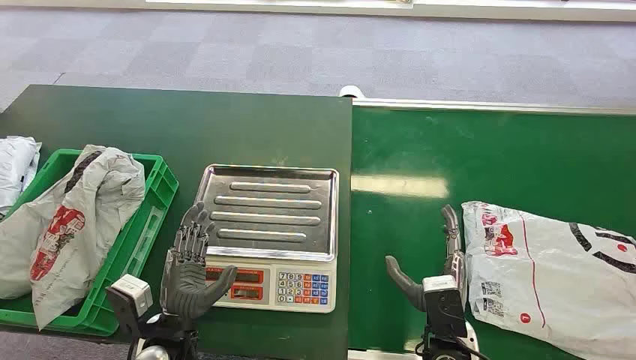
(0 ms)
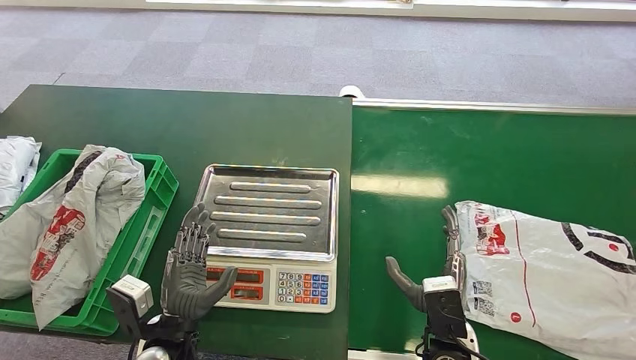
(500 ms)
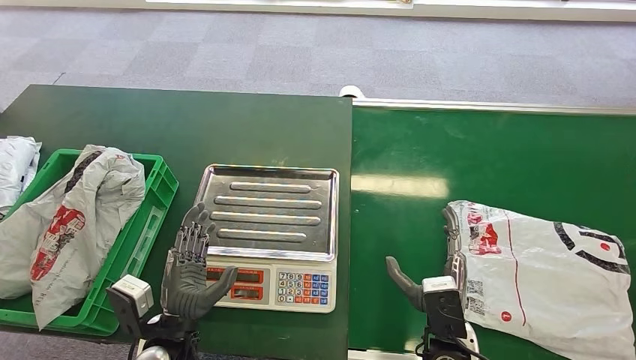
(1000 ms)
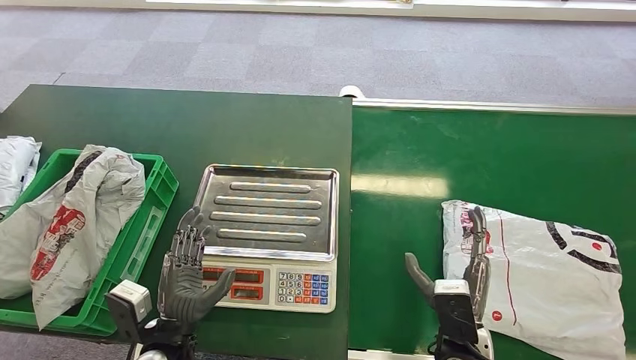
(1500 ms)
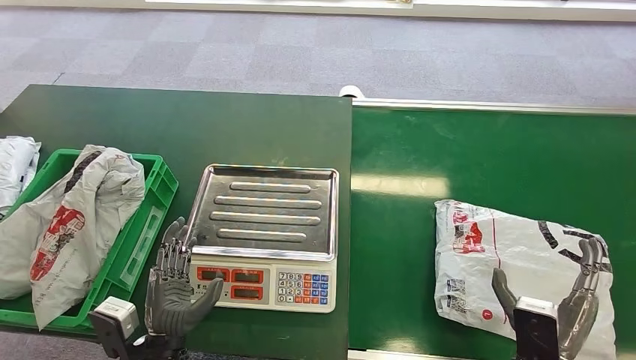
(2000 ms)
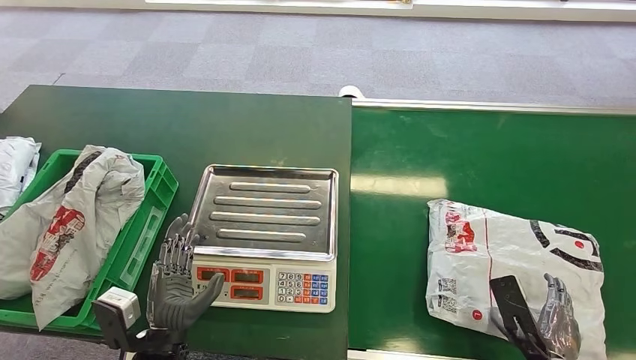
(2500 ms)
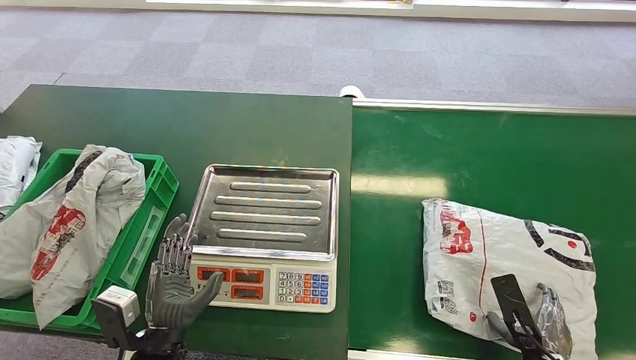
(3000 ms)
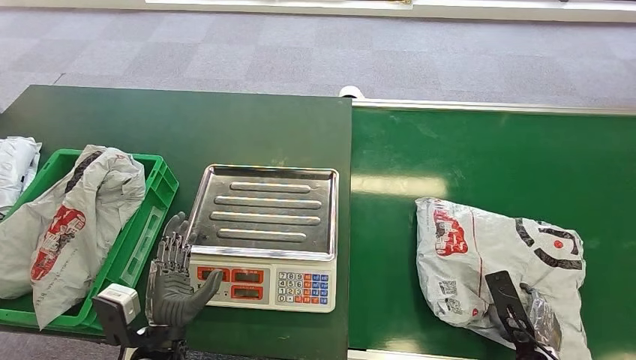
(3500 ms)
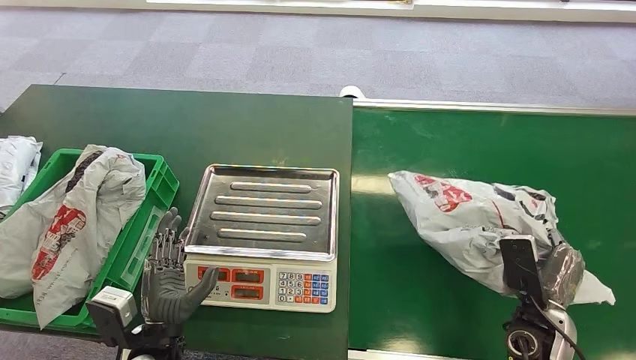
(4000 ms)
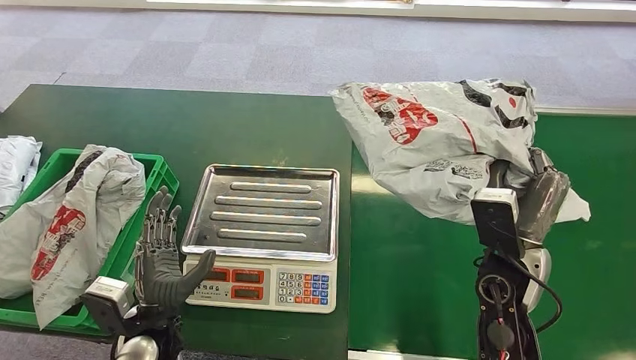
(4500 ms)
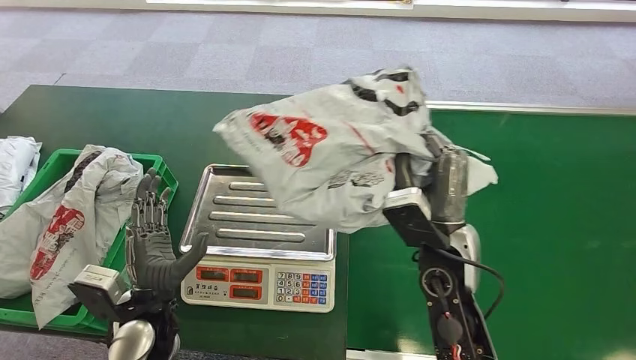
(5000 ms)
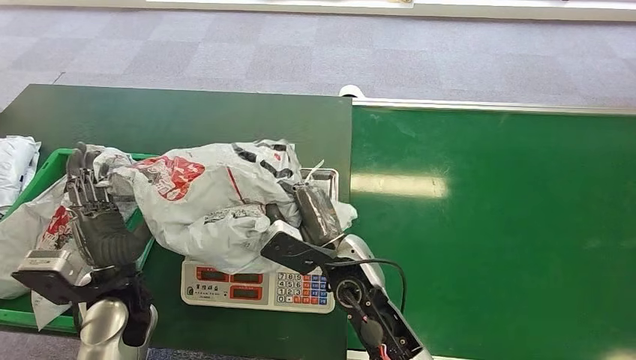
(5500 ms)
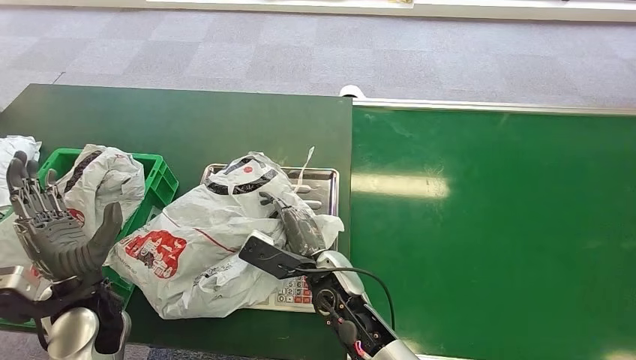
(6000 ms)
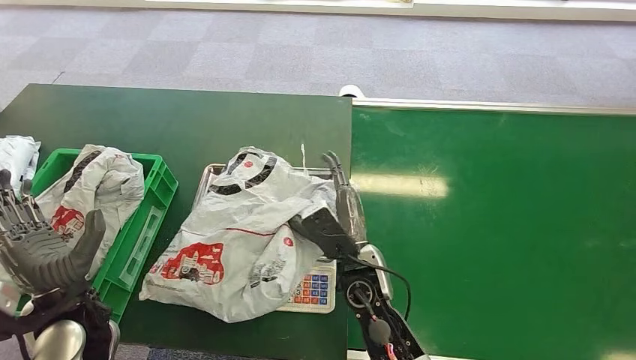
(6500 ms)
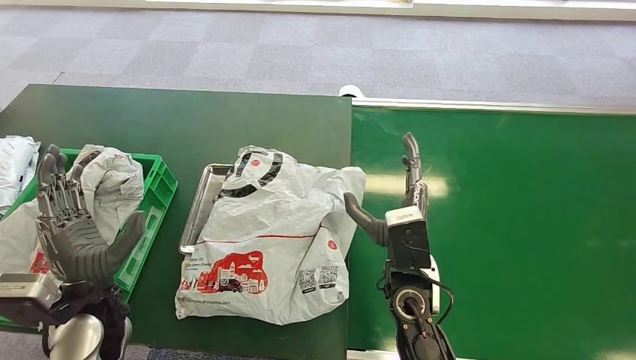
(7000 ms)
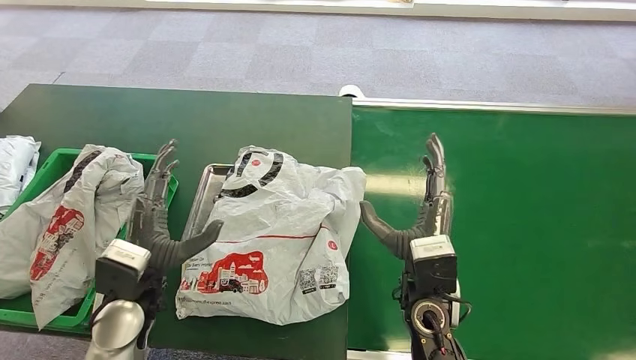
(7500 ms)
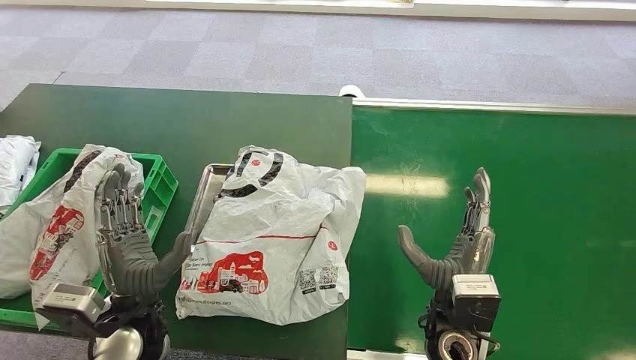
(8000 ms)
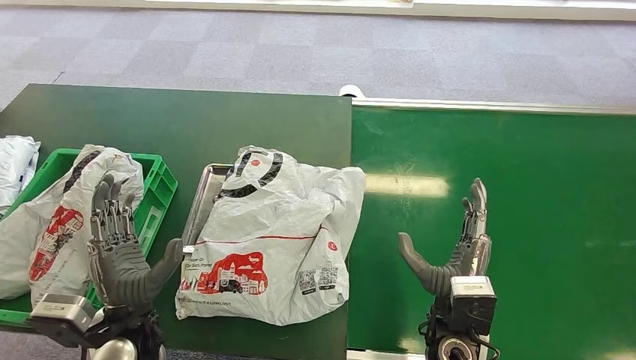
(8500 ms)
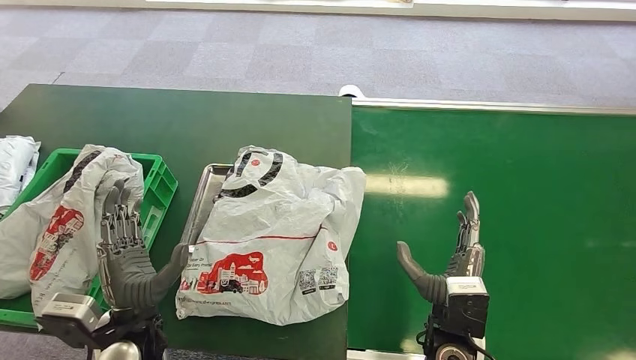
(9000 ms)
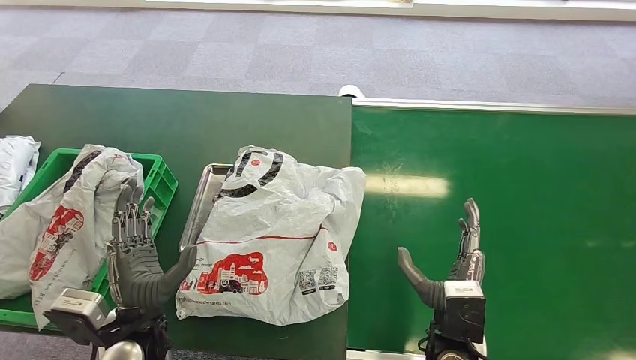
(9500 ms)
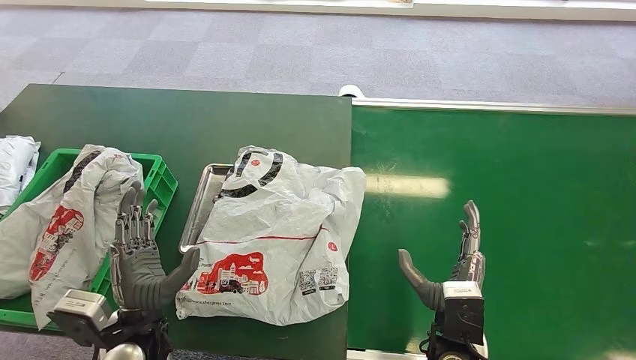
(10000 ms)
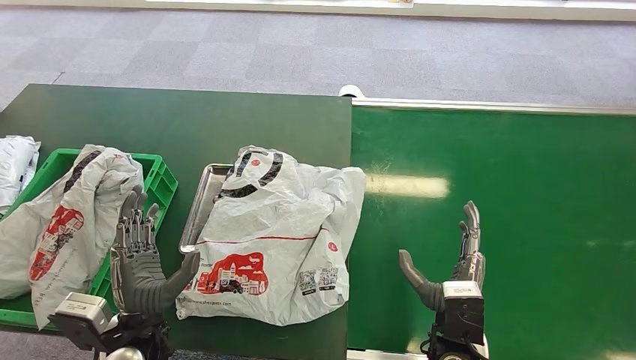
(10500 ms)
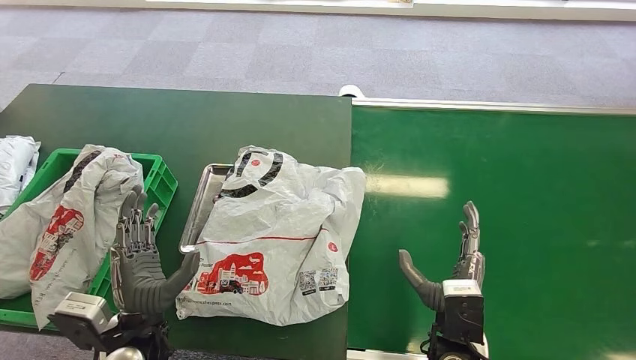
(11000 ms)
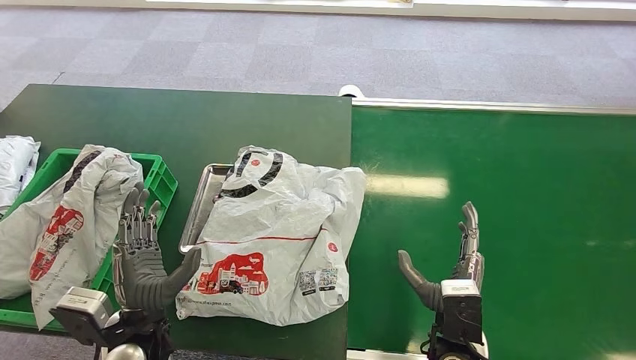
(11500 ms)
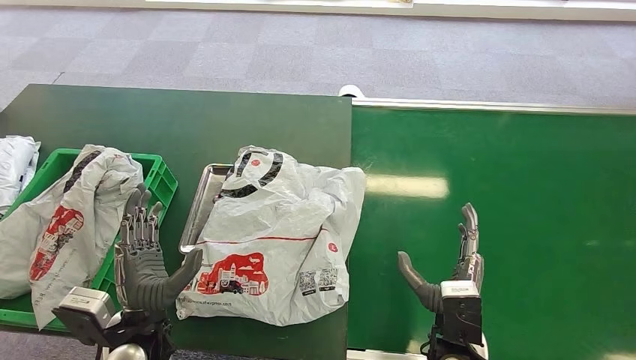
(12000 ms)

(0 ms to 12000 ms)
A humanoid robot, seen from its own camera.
Task of the whole recording: Weigh the package on the weighing device and place it in the left basket.
Step, 0 ms - 4500 ms: Pick up the package from the conveyor belt.
Step, 5000 ms - 7500 ms: Place the package onto the inbound machine.
2000 ms - 4000 ms: The right hand moves forward, roughly 5 cm.
8000 ms - 10000 ms: The right hand ends up roughly 5 cm from where it was.
10000 ms - 12000 ms: Both hands stay put.

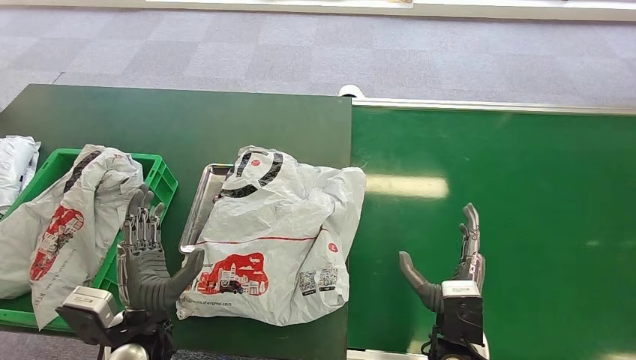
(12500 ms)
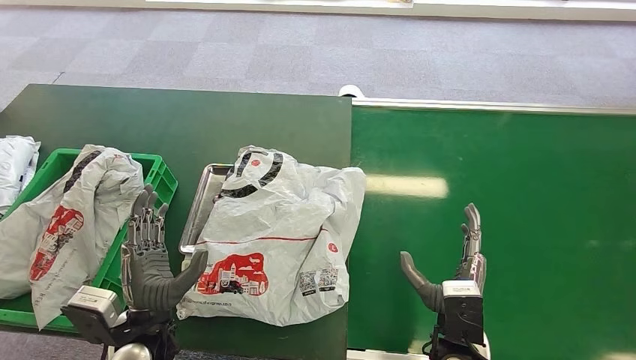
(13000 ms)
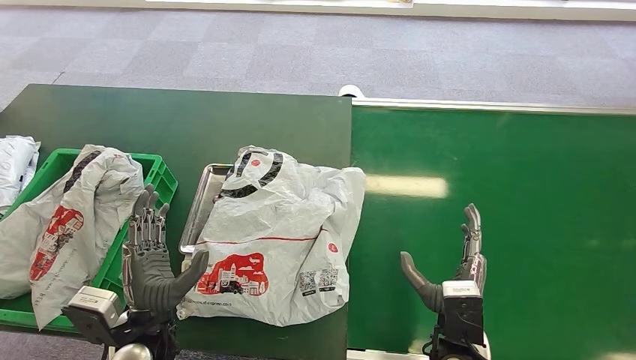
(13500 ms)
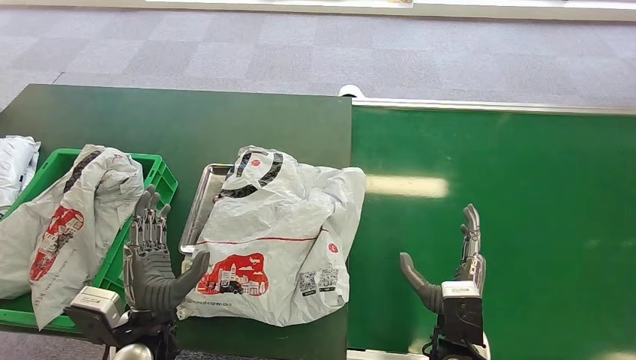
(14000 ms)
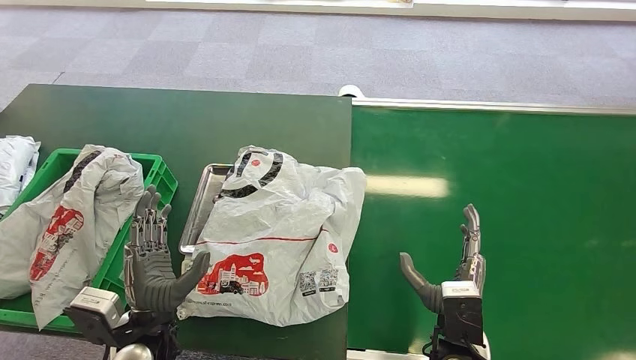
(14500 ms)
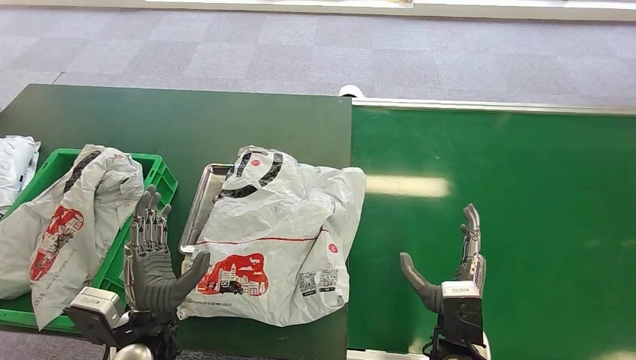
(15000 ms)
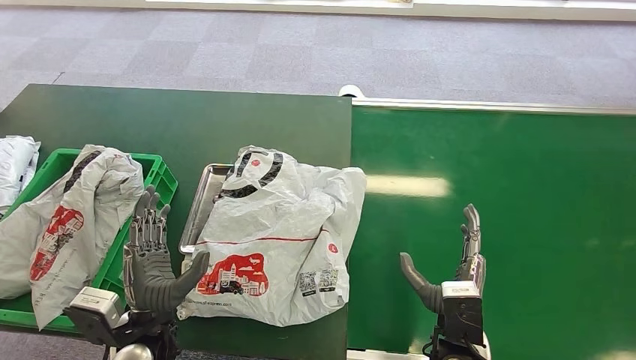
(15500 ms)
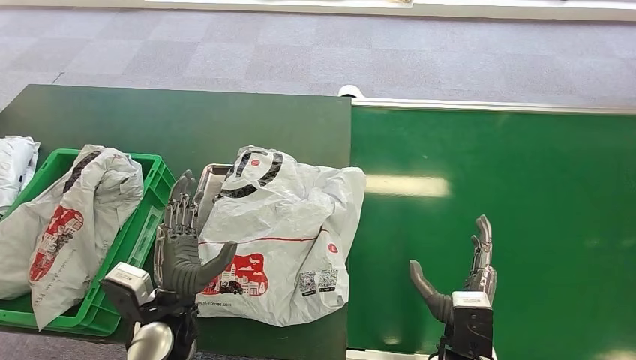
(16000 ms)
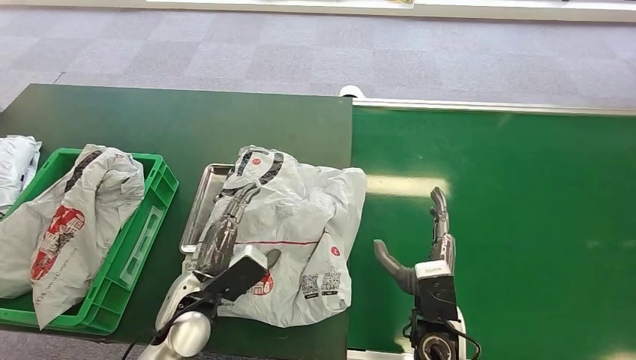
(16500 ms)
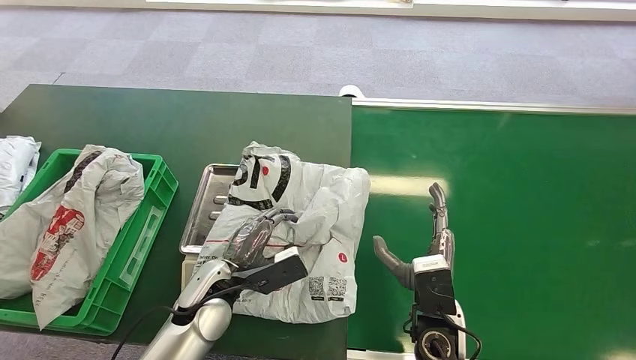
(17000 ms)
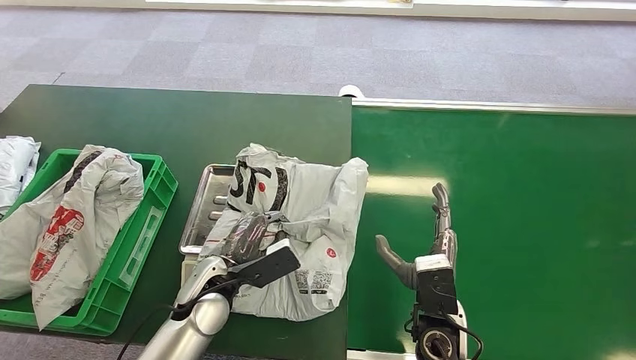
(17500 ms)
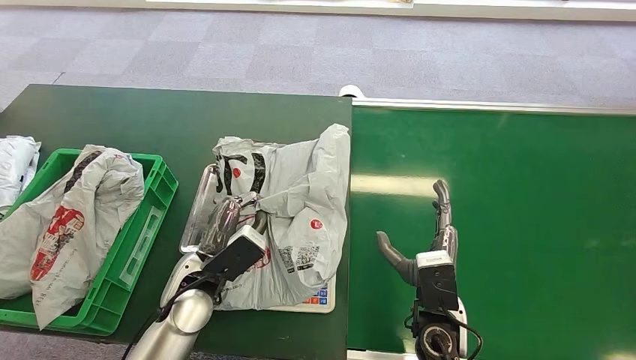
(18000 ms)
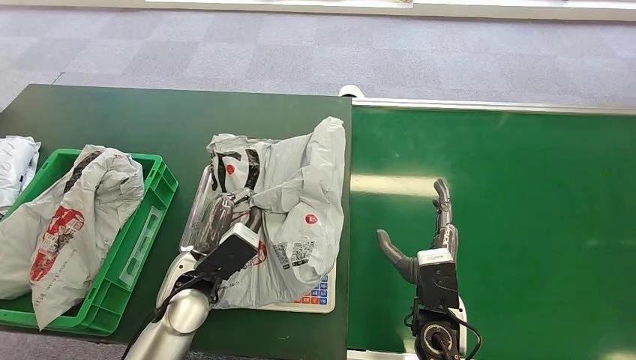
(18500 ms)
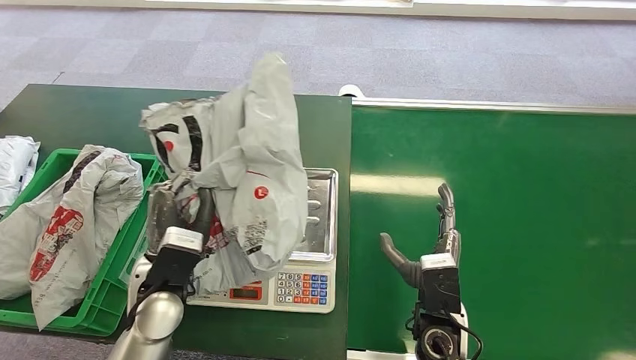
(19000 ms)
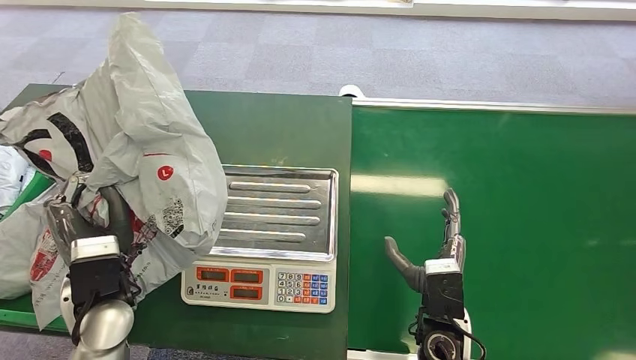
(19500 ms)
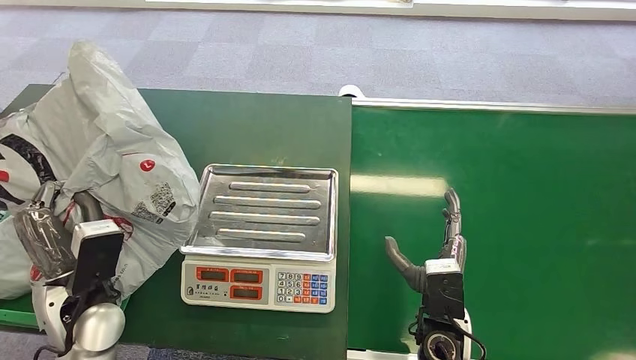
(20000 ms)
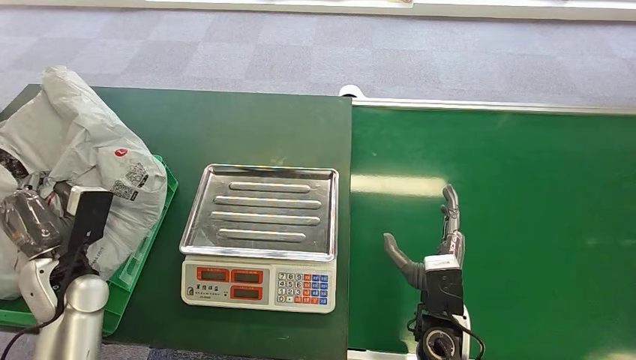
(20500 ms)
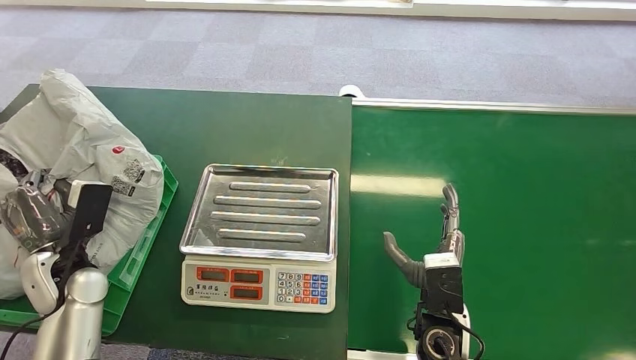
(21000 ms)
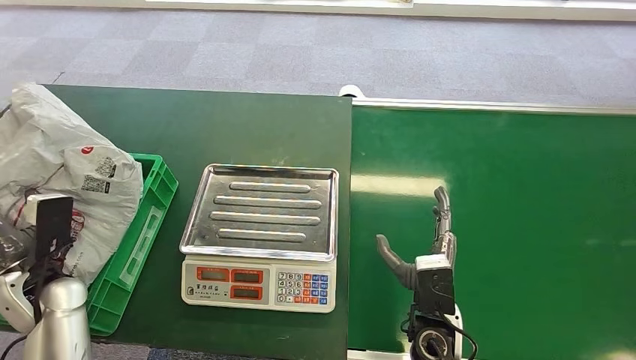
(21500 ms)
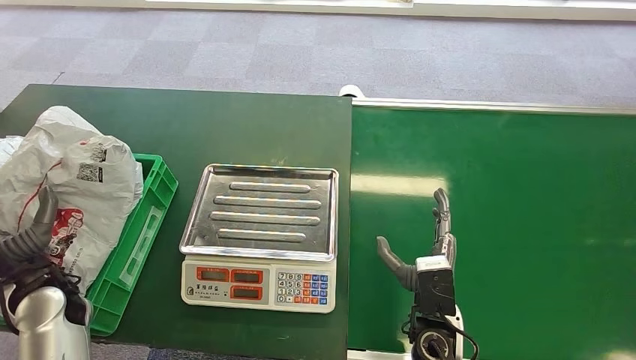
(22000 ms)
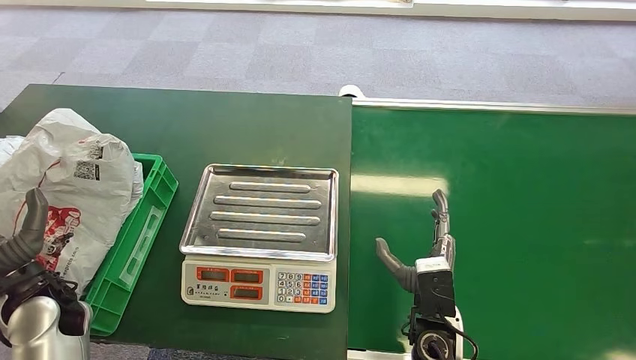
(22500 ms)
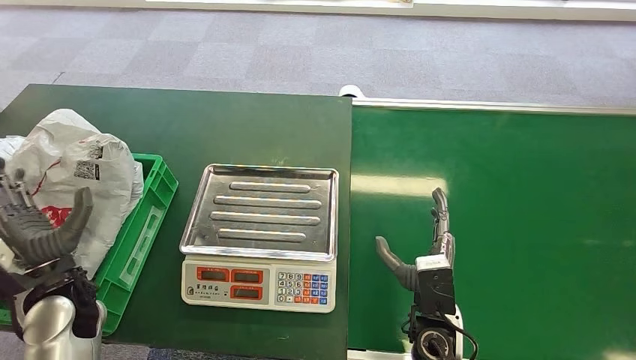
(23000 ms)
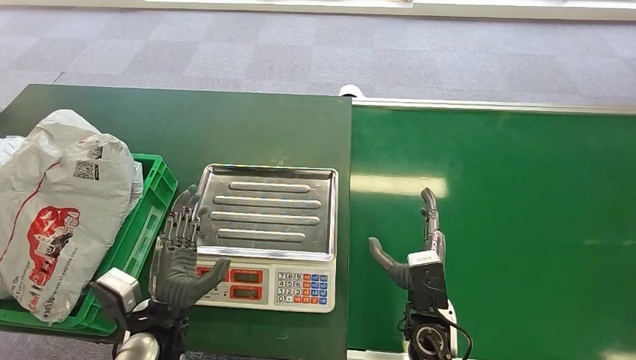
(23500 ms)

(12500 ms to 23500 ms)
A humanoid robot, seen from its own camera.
Task of the whole recording: Weigh the package on the weighing device and place it in the left basket.
Step, 12500 ms - 19000 ms: Pick up the package from the inbound machine.
Step, 20000 ms - 23500 ms: Place the package into the parcel locker.
12500 ms - 14500 ms: Both hands stay put.
14500 ms - 16000 ms: The hands move only a little.
16000 ms - 18000 ms: Both hands travel together forward, some 5 cm.
20000 ms - 21500 ms: The left hand goes about 10 cm to the left.
21500 ms - 23500 ms: The left hand goes some 20 cm to the right.
